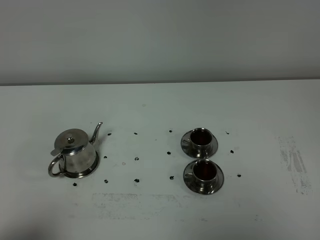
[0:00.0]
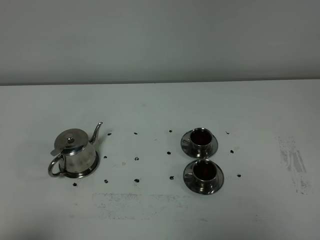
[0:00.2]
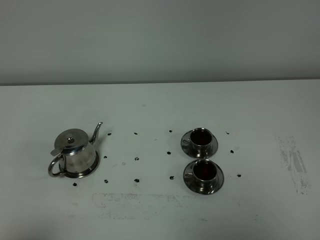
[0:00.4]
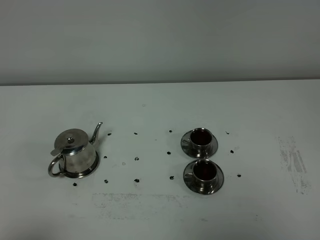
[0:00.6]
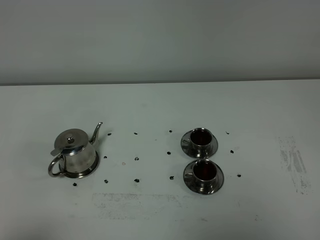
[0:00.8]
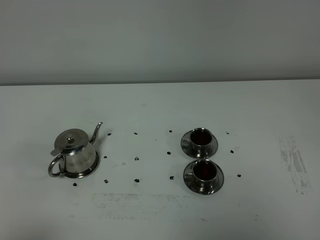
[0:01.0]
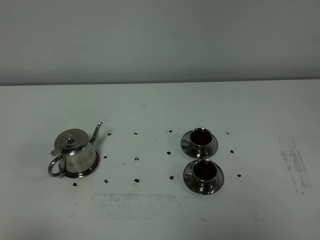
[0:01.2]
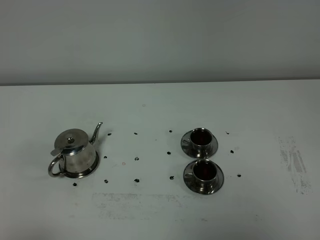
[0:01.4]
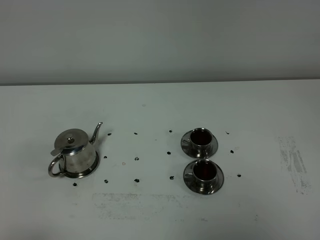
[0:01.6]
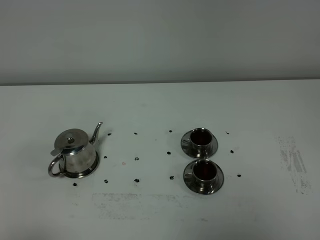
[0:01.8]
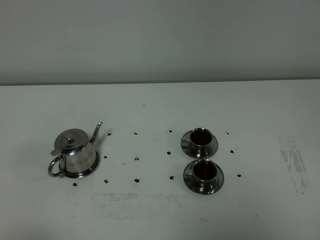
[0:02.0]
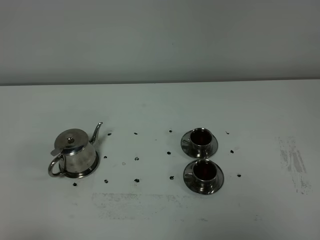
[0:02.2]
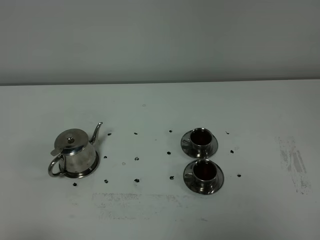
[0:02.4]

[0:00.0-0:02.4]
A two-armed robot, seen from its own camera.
Task of the whole recording: grasp the stainless steel teapot and pour the tea into the two stainless steel teacups one by one, put the stainless steel teapot back in its original place.
0:01.2 to 0:02.4: Neither gripper changes place.

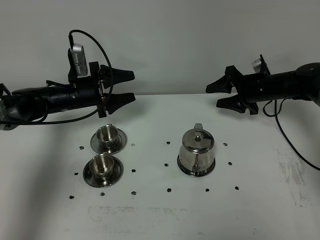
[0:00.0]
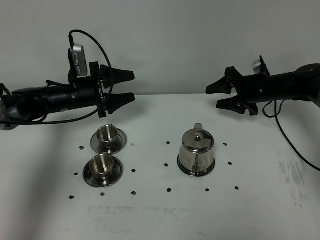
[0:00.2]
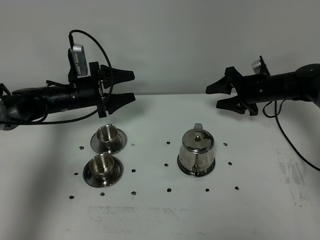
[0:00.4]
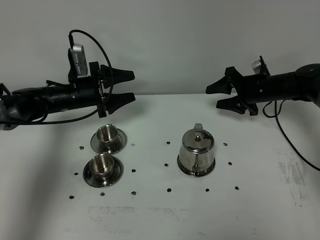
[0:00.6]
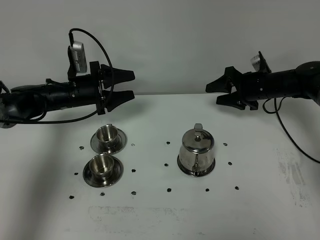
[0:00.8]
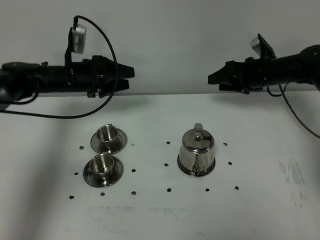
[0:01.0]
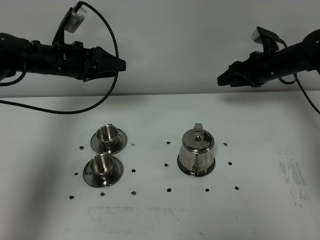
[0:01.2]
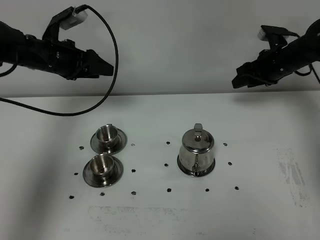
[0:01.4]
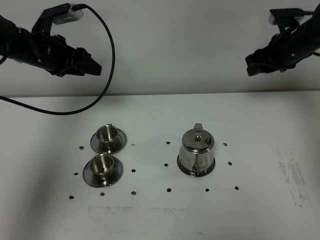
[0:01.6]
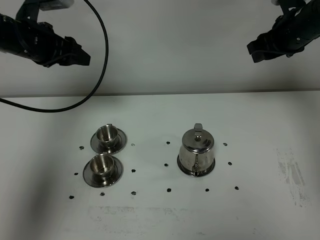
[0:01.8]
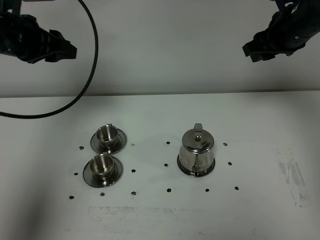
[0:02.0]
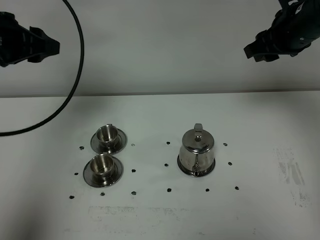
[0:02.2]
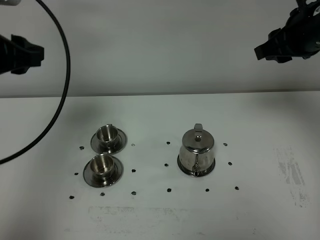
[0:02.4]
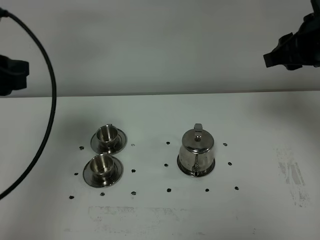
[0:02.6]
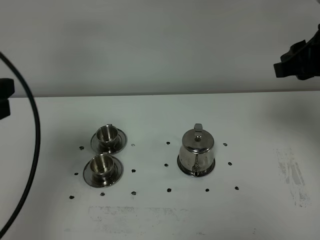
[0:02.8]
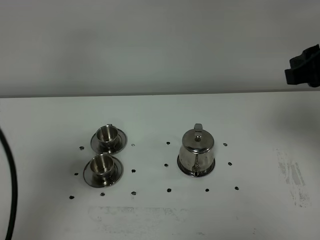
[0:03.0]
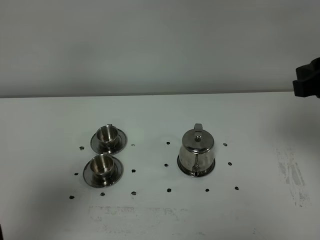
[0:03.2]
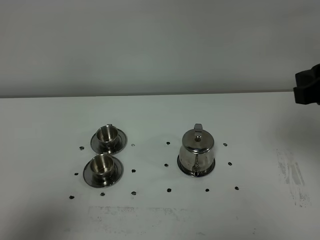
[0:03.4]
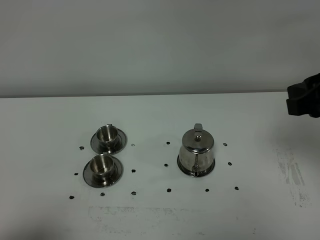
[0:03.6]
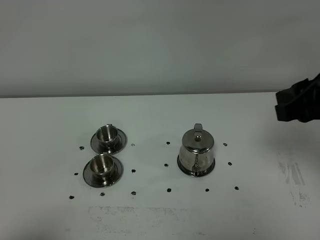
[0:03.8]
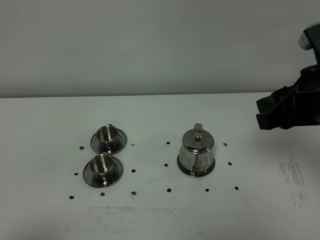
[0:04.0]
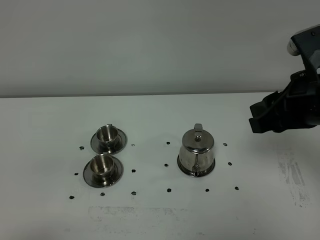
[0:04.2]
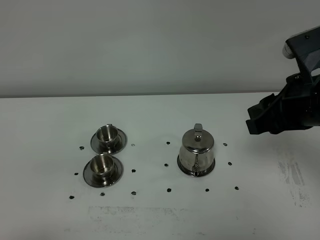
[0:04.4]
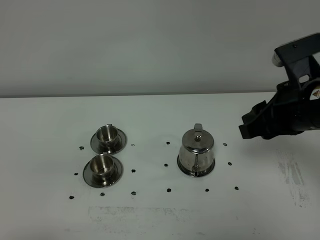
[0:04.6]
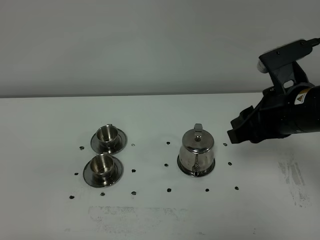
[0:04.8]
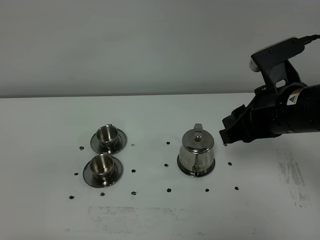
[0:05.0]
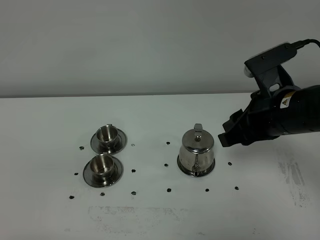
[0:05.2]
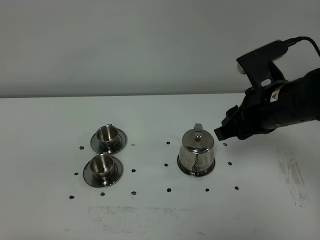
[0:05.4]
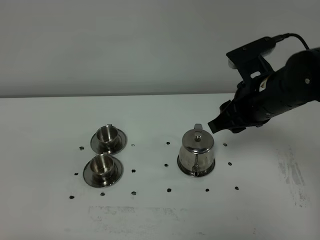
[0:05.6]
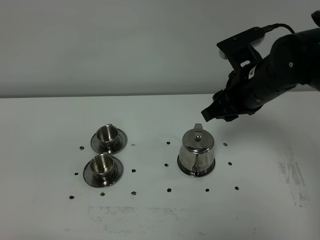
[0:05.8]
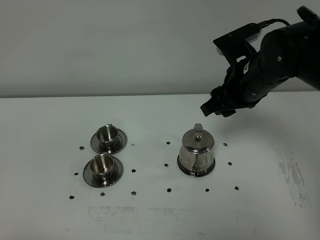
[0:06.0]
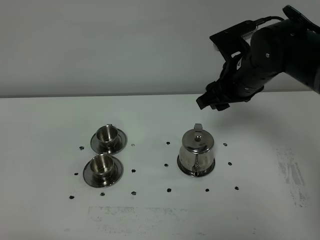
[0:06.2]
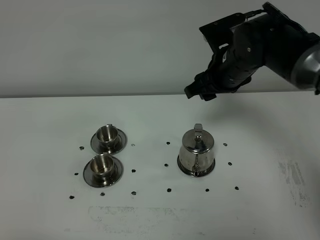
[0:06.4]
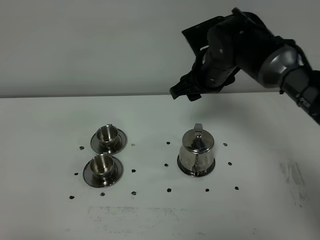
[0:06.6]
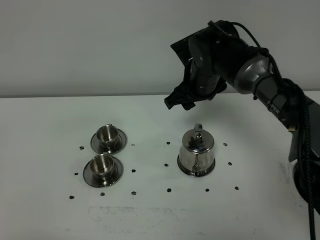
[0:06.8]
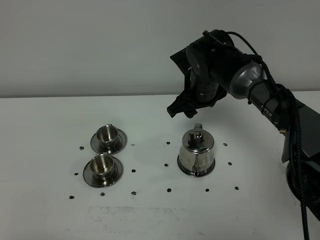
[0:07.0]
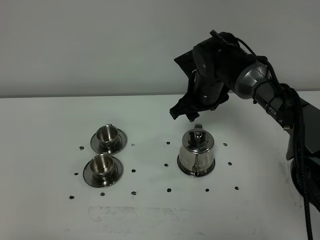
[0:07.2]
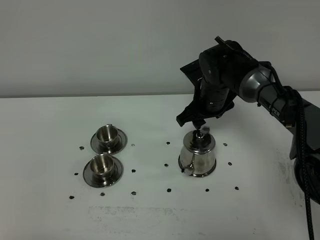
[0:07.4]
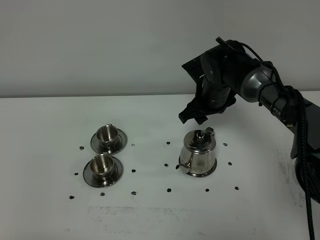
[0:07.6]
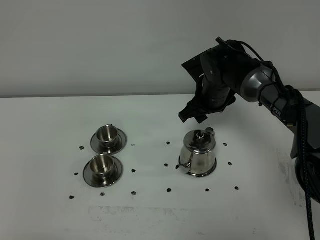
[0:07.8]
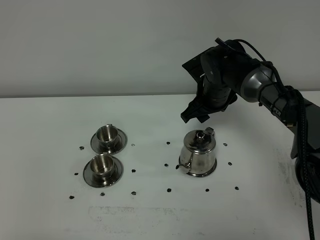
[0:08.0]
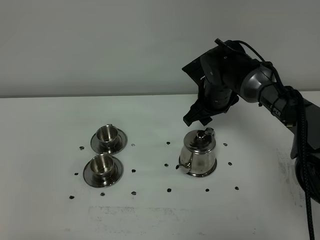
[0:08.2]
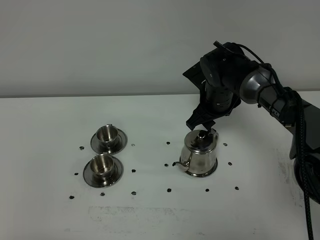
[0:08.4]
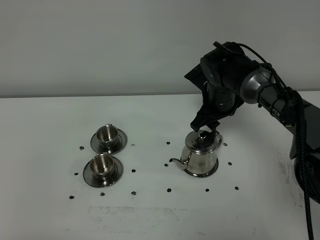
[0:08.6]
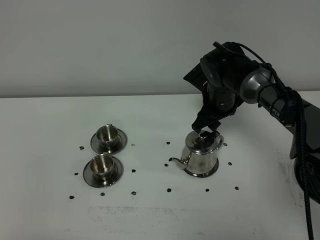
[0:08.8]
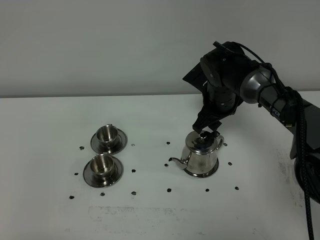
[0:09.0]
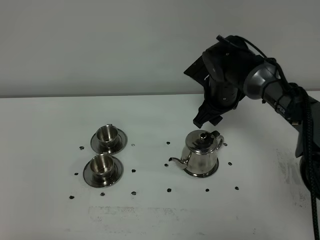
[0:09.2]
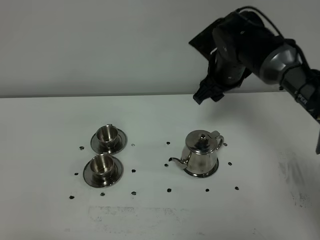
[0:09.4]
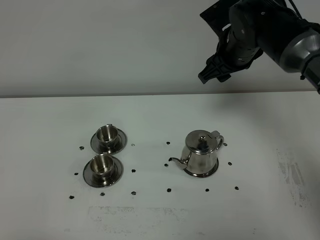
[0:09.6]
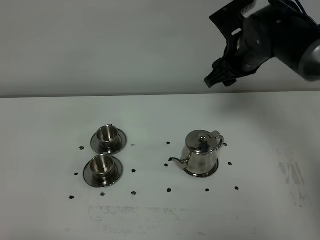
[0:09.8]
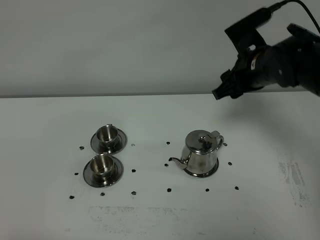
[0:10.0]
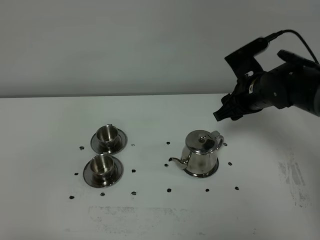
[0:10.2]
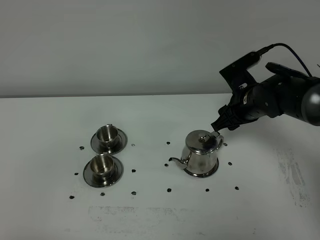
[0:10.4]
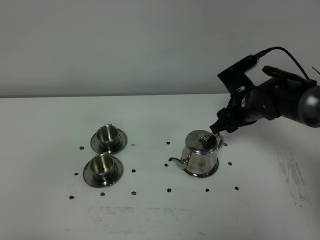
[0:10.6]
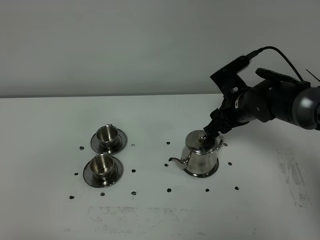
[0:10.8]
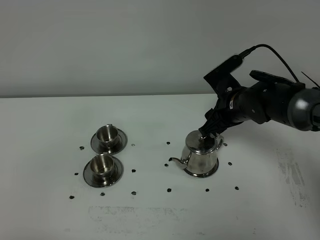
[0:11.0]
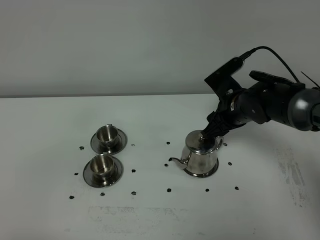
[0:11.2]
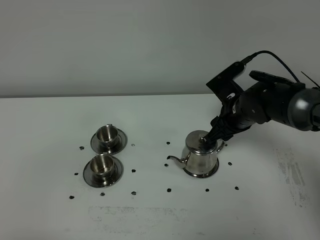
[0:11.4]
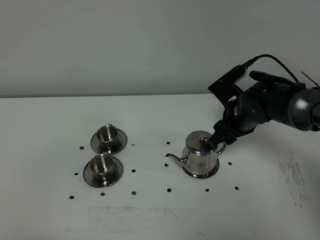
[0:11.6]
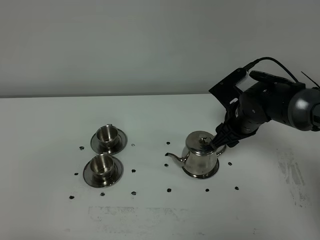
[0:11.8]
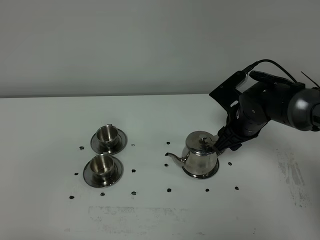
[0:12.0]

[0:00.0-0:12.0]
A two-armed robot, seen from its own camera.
Task of the whole recording: grasp the stainless steel teapot and pour the tea into the two stainless steel teacups one by one, put the stainless steel teapot back in its original place.
0:00.0 to 0:01.6: Both grippers move upward, some 15 cm.
0:01.6 to 0:03.0: The right gripper heads backward and upward, covering some 25 cm. Meanwhile the left gripper heads backward, covering roughly 35 cm.
0:03.0 to 0:04.4: The left gripper goes some 15 cm backward and downward. Meanwhile the right gripper moves downward, approximately 5 cm.
0:04.4 to 0:06.0: The right gripper heads forward and to the left, covering roughly 10 cm.
0:06.0 to 0:07.6: The right gripper goes roughly 15 cm downward and forward.
0:07.6 to 0:09.0: The grippers stay close to where they were, moving slightly.
0:09.0 to 0:10.4: The right gripper shifts approximately 5 cm to the right, and goes upward and returns, approximately 10 cm each way.
0:10.4 to 0:12.0: The grippers stay close to where they were, moving slightly.

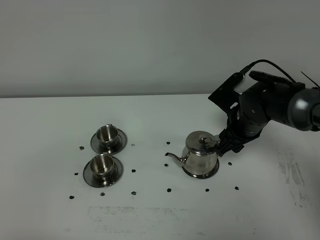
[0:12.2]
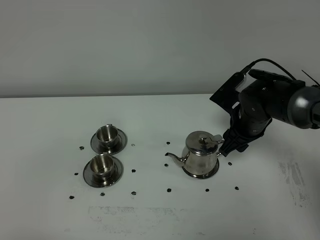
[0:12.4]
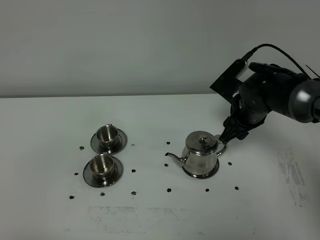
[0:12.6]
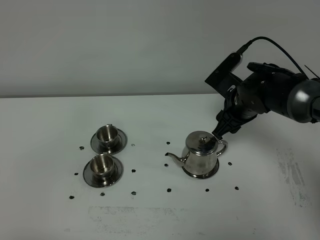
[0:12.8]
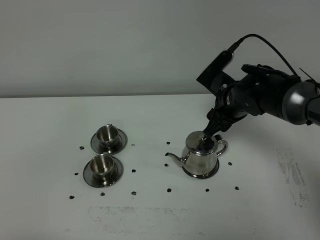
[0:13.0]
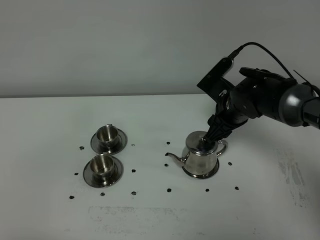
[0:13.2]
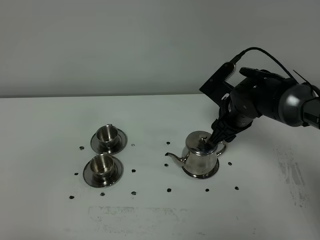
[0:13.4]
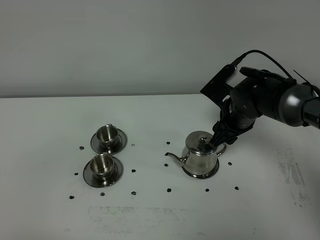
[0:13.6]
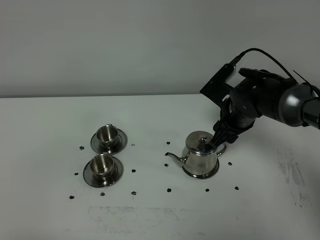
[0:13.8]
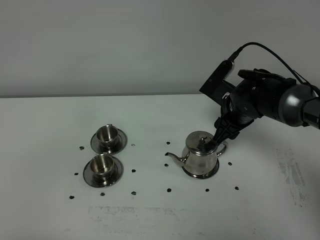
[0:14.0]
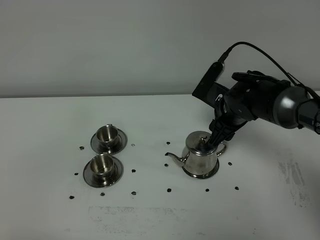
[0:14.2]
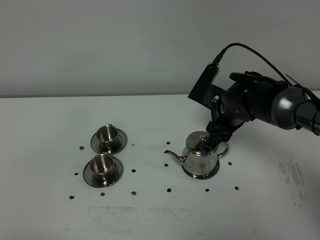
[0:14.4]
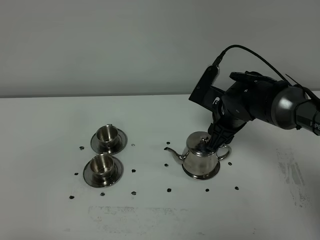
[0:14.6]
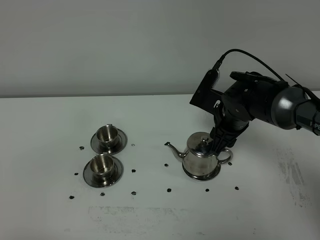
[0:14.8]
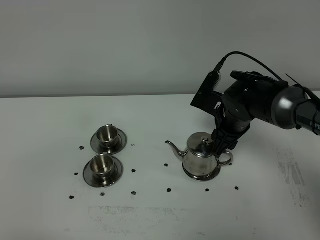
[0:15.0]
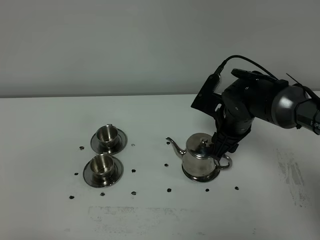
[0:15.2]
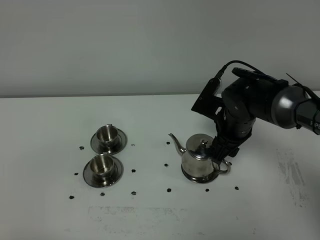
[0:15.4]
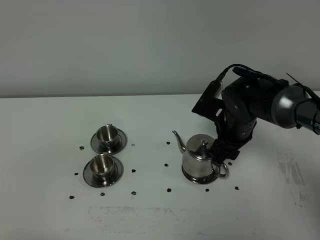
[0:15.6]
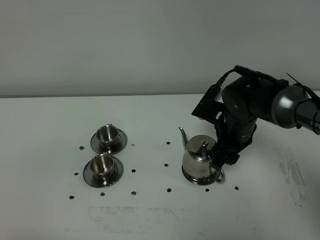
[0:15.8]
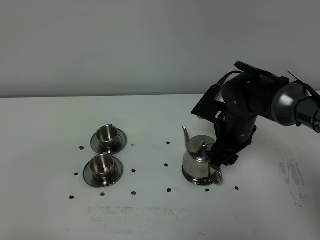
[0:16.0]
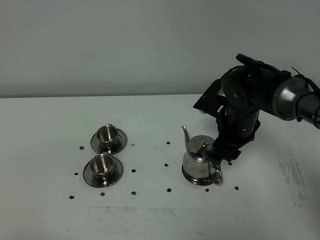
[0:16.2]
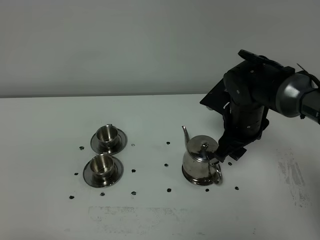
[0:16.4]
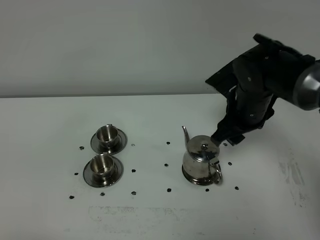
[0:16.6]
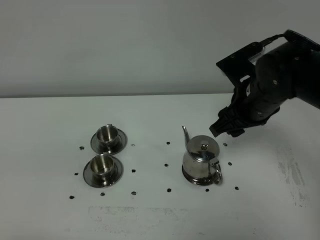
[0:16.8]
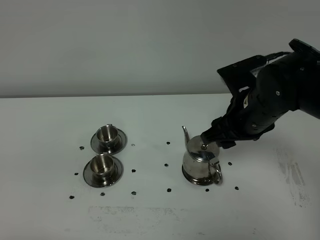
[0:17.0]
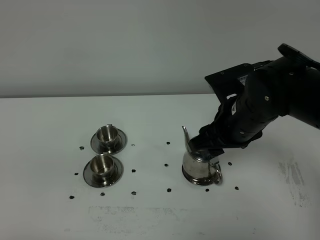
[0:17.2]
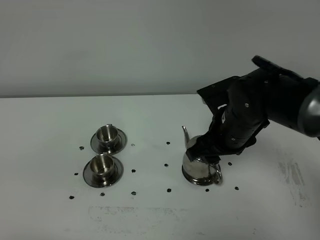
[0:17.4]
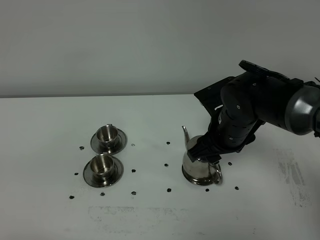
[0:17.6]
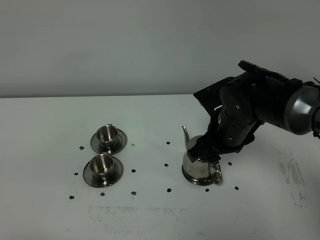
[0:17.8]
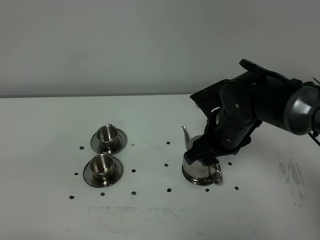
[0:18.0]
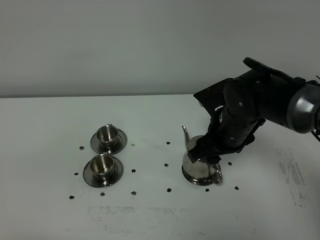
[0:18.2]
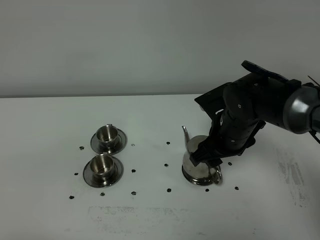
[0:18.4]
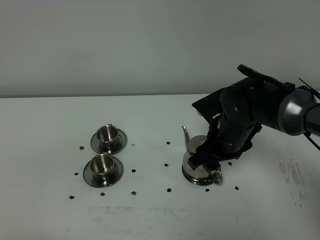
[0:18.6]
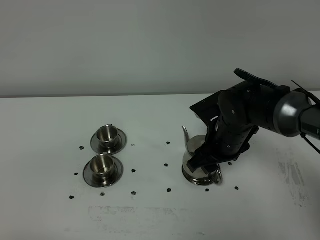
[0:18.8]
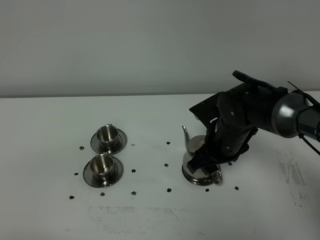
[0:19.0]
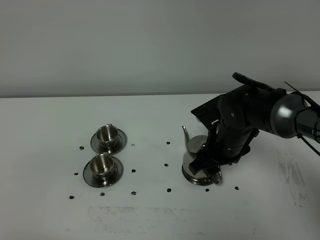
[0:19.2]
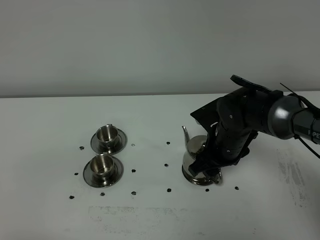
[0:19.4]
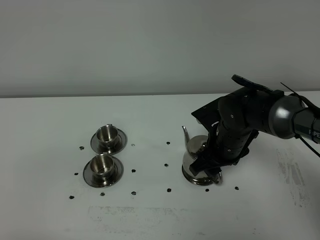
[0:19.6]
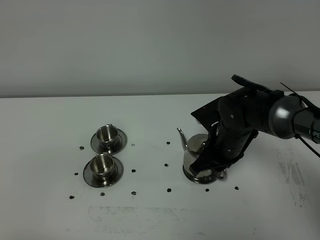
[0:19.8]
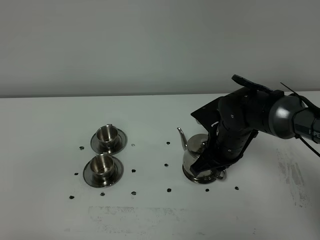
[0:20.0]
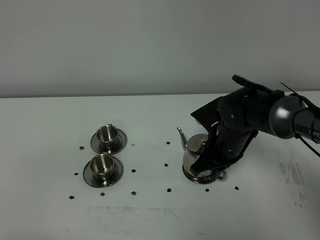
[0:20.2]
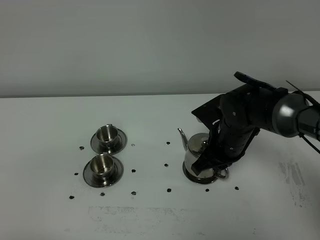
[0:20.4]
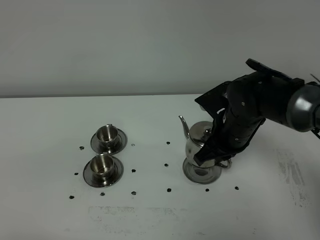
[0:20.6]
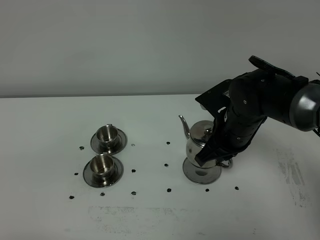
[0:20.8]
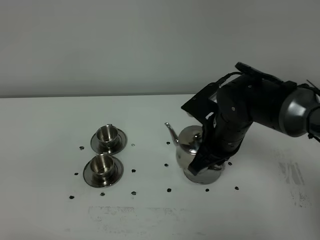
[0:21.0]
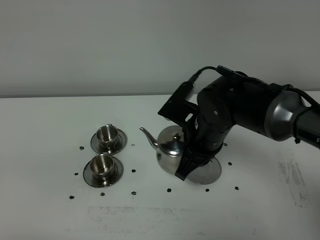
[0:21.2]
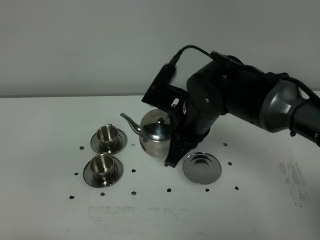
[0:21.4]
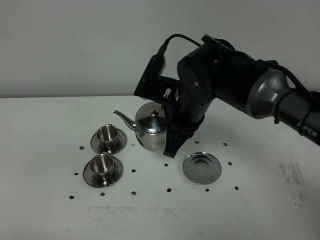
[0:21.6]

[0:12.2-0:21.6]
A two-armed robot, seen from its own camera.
Task of the whole recording: grasp the stainless steel teapot and pour the tea into the two stainless steel teacups one by one, put the stainless steel teapot back in its original place.
Step, 0:12.2 to 0:20.4: Pick up the teapot with the right gripper.
0:12.2 to 0:15.4: The grippers make only small movements.
0:15.4 to 0:17.0: The right gripper goes about 10 cm upward and backward.
0:17.0 to 0:18.4: The right gripper heads downward, covering some 5 cm.
0:18.4 to 0:20.0: The right gripper closes up.
0:20.0 to 0:21.6: The right gripper goes about 15 cm upward and to the left.
